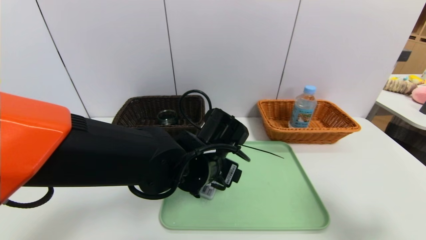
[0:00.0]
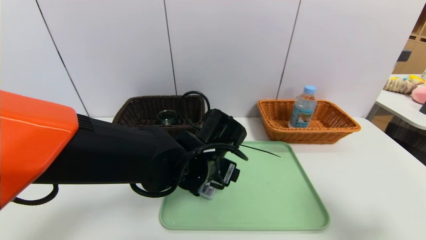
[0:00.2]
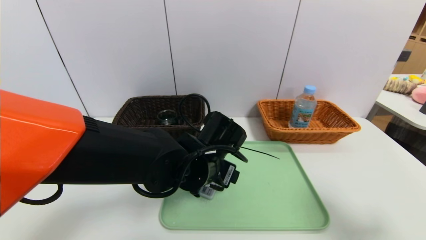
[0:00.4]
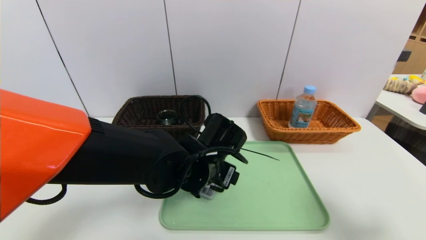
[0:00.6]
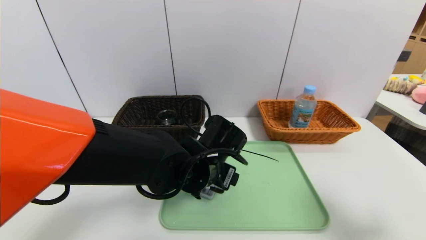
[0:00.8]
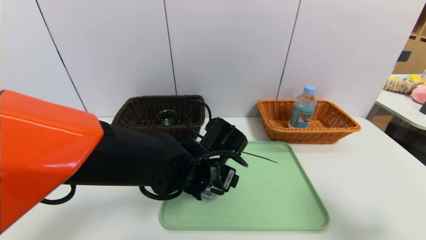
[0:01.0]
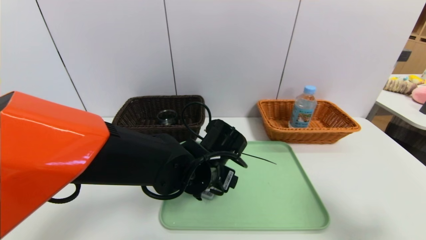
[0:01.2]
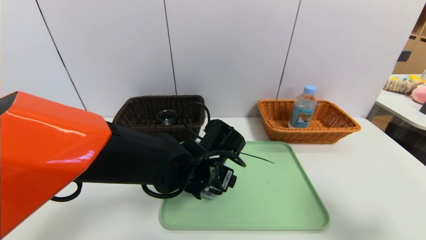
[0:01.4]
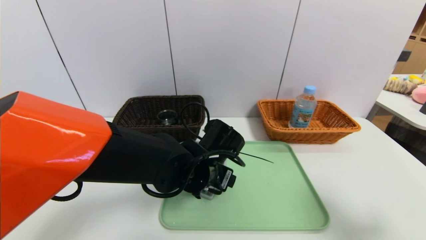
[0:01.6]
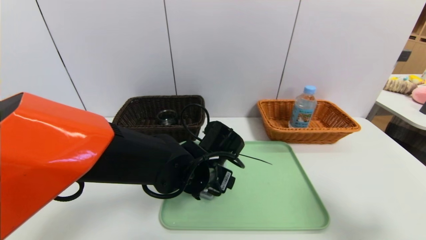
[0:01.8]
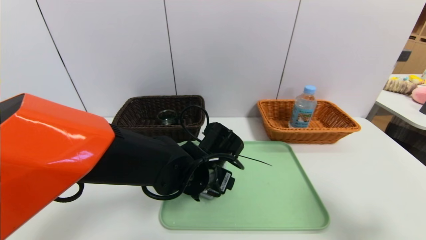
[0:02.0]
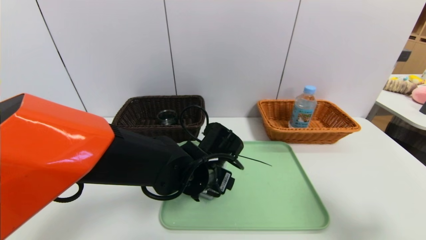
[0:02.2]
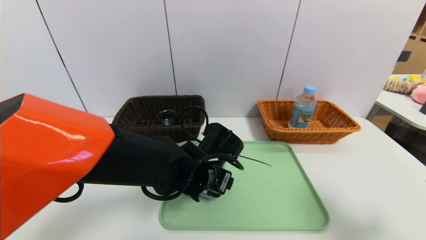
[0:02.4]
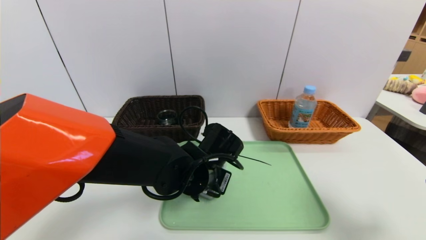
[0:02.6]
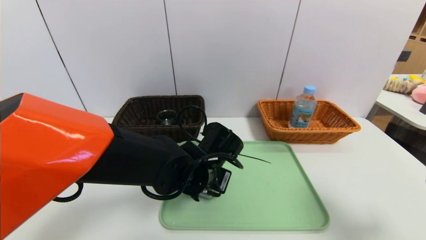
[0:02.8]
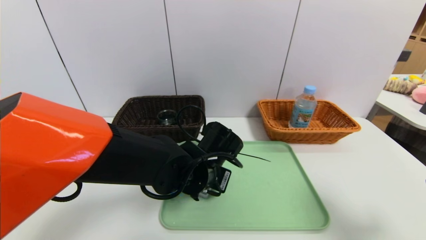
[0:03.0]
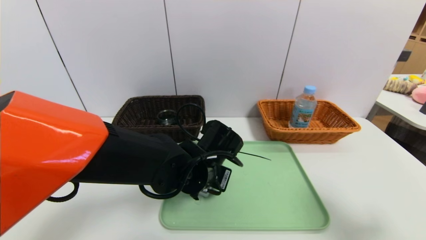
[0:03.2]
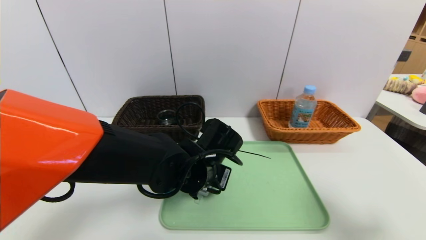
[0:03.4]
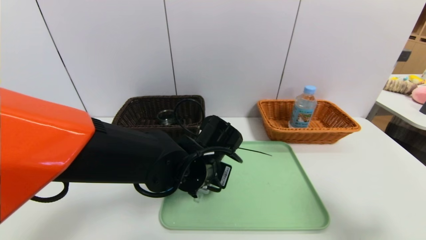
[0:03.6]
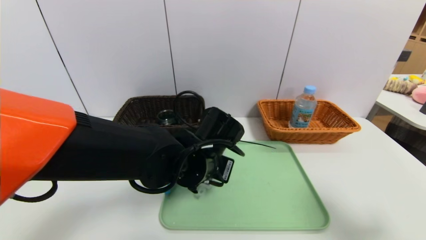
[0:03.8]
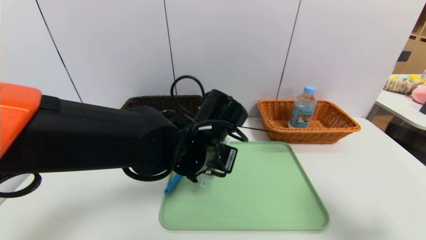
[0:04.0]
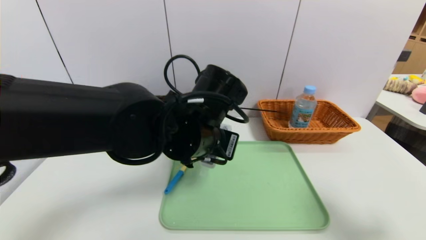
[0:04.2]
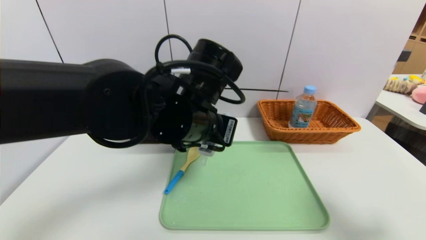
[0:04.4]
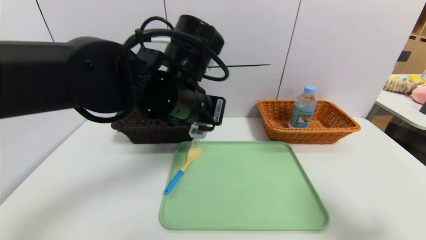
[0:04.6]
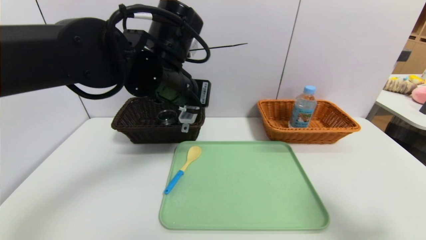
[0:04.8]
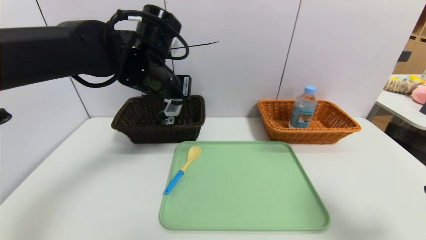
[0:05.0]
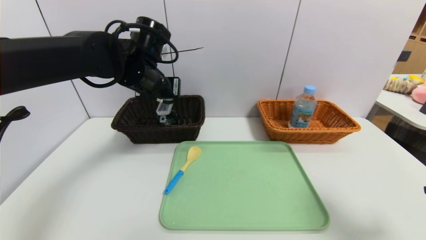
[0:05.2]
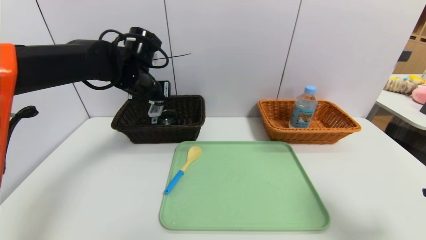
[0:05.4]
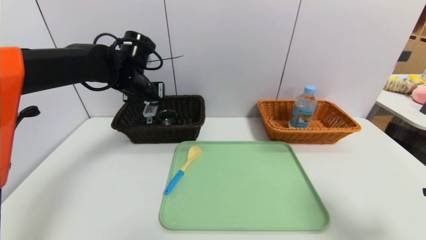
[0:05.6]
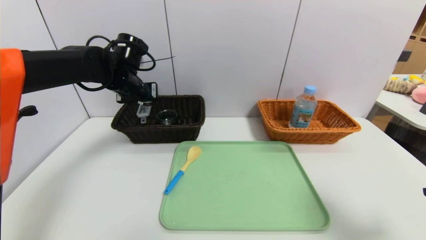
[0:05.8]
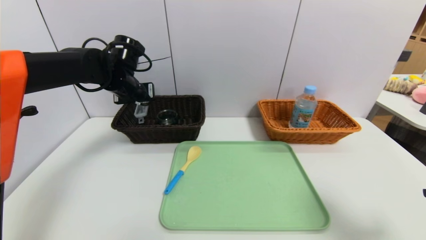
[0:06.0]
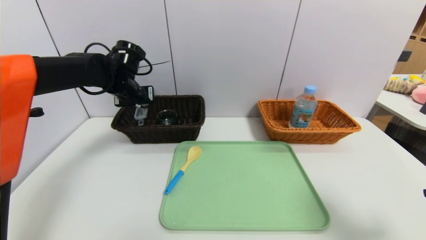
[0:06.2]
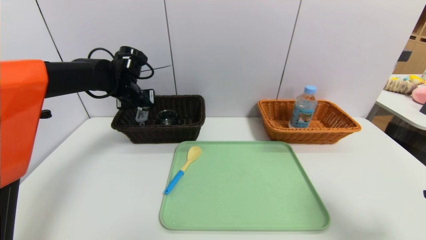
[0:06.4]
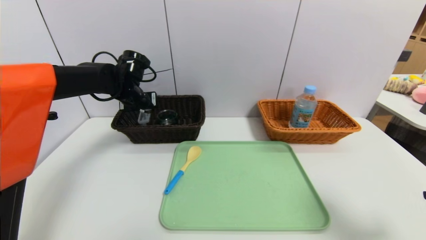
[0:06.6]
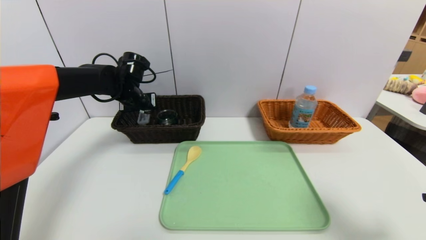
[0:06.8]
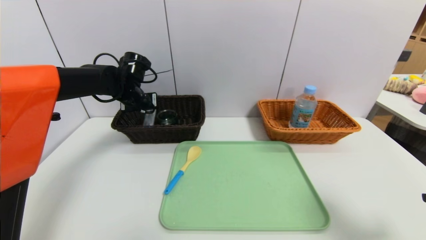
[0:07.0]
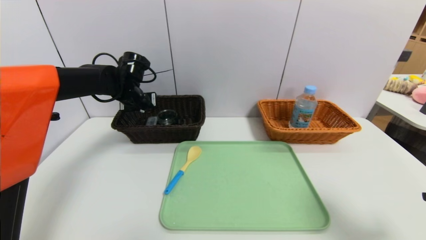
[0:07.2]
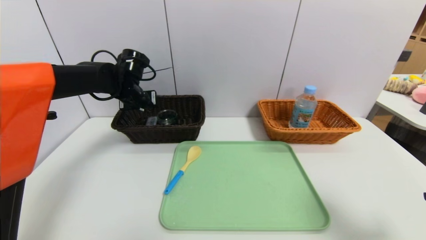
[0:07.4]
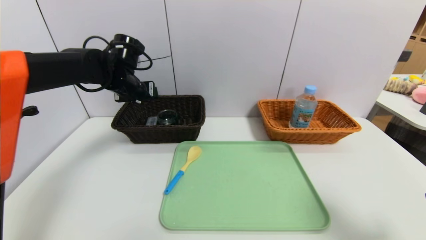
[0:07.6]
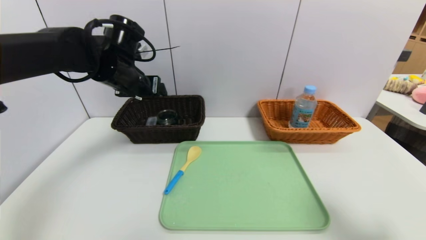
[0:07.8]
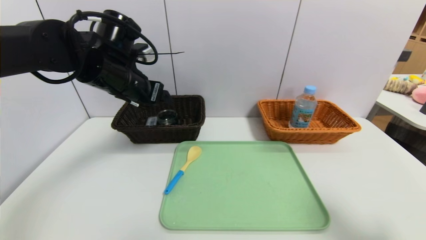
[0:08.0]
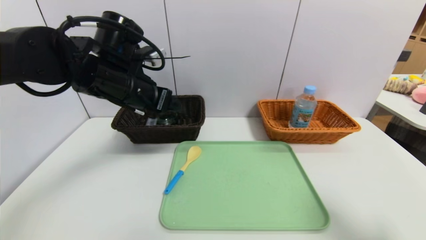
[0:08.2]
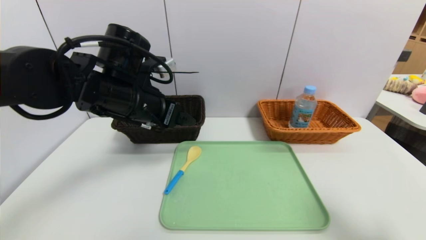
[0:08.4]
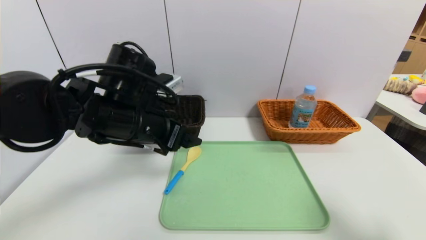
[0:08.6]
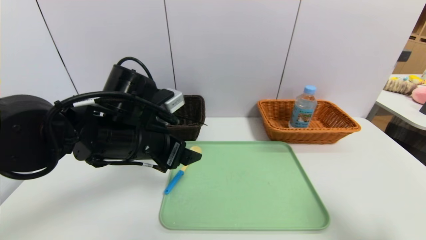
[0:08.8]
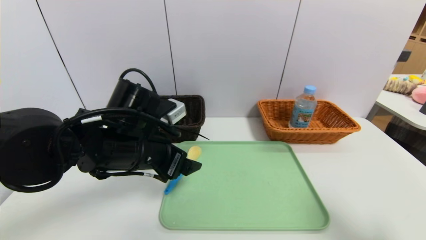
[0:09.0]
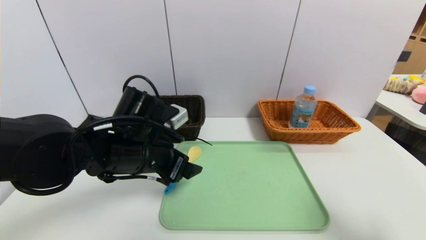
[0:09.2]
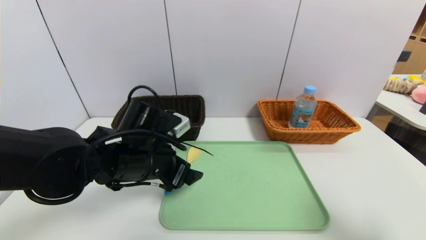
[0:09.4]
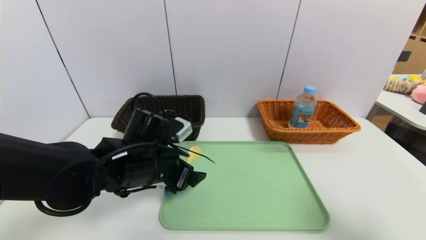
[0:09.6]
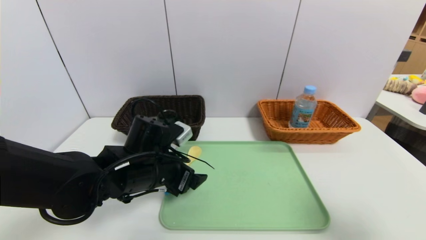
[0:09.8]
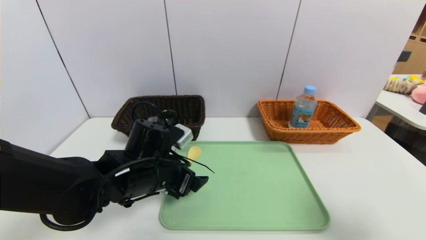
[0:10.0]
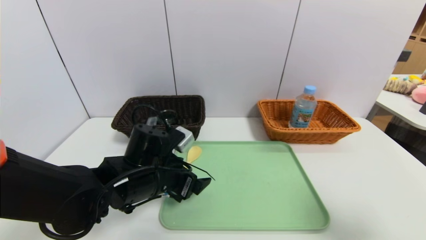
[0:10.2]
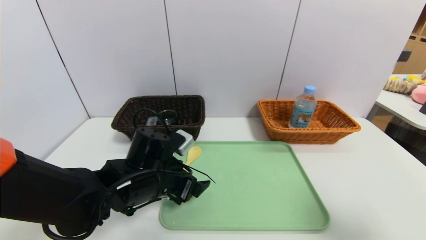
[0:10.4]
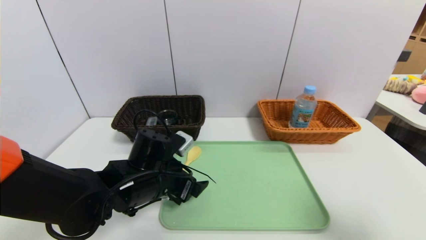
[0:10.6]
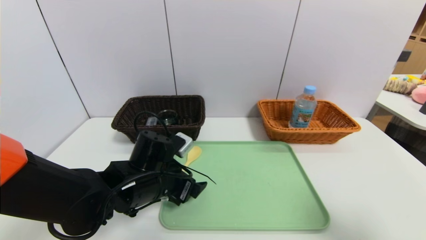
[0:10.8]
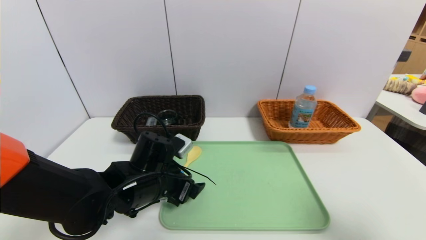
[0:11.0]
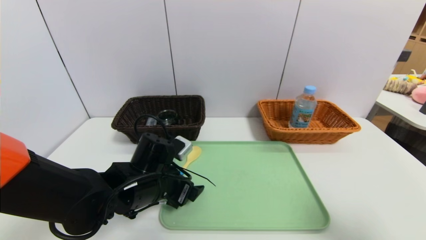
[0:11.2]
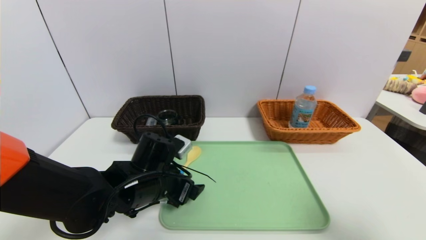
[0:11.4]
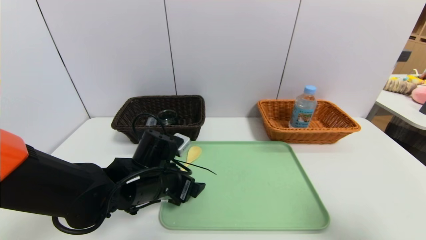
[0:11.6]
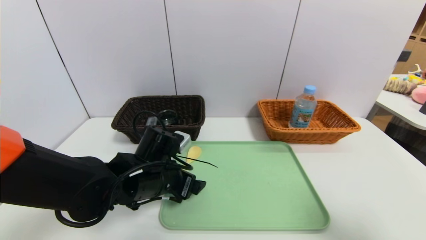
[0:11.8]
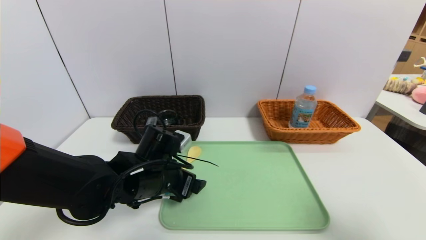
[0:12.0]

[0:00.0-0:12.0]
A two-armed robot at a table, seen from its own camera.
Task of the whole recording: place the food in the right basket with the right gripper, and place the non food items in the left basket with the left gripper.
Step, 0:00.0 to 0:08.6: Grasp the compass and put it in the left basket.
0:00.0 to 0:01.6: The grippers make only small movements.
0:01.6 to 0:03.0: The left gripper closes.
0:03.0 to 0:04.4: The left gripper moves upward, roughly 15 cm.
0:04.4 to 0:06.0: The left gripper travels to the left and forward by approximately 25 cm.
0:06.0 to 0:07.6: The left gripper opens.
0:07.6 to 0:09.0: The left gripper shifts some 20 cm backward and to the right.
0:09.0 to 0:10.4: The left gripper shifts about 10 cm downward.
0:10.4 to 0:12.0: The grippers make only small movements.

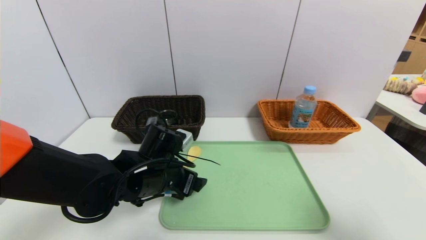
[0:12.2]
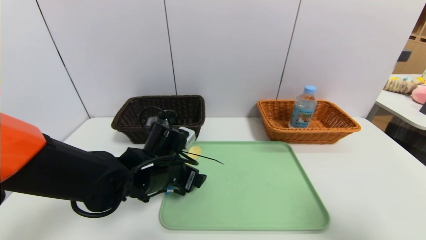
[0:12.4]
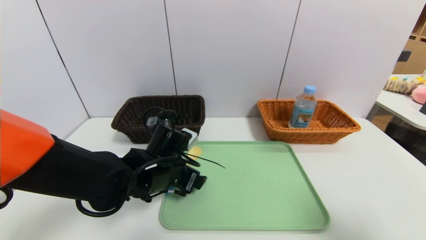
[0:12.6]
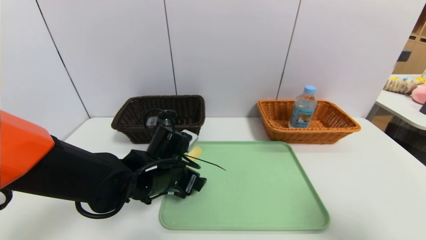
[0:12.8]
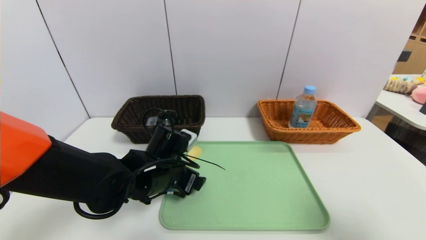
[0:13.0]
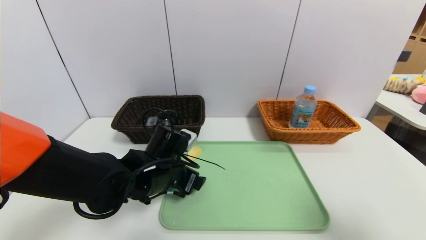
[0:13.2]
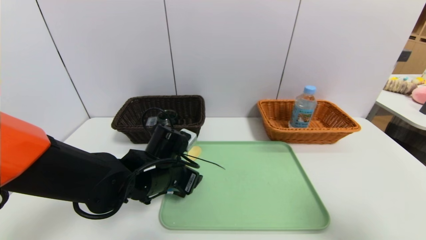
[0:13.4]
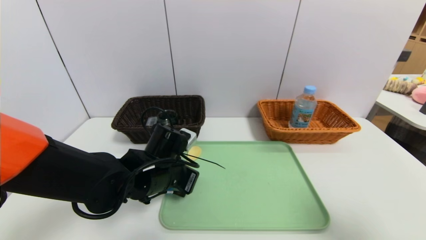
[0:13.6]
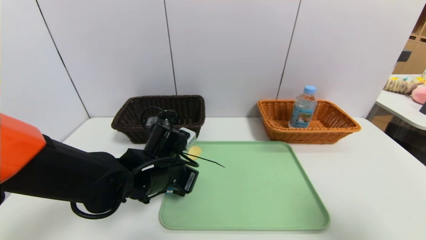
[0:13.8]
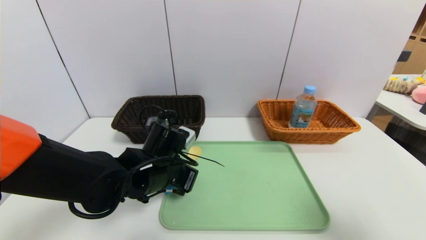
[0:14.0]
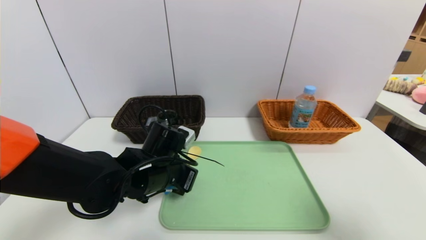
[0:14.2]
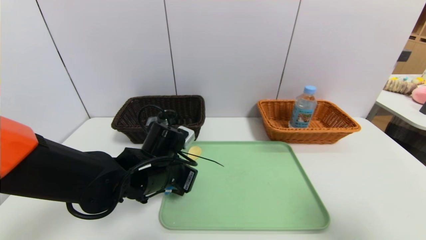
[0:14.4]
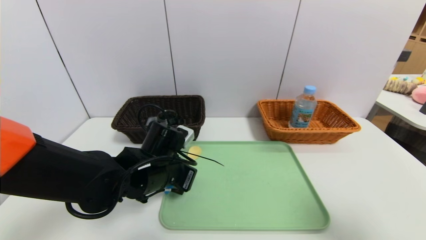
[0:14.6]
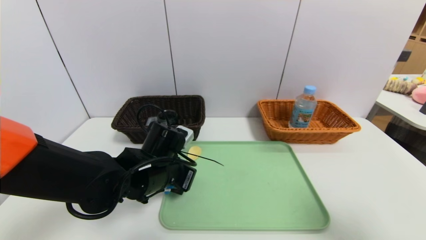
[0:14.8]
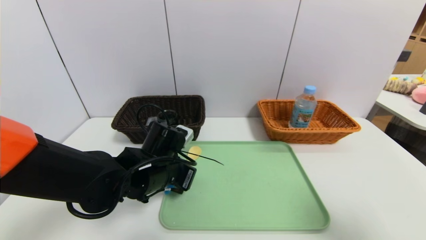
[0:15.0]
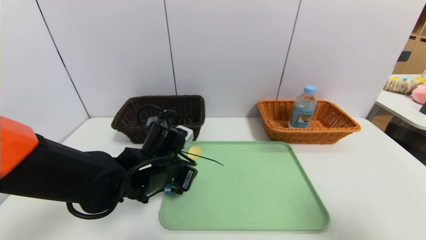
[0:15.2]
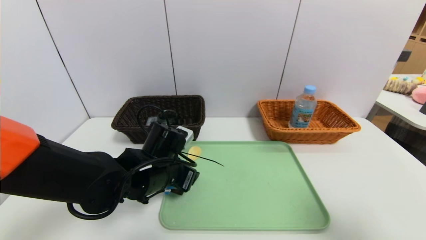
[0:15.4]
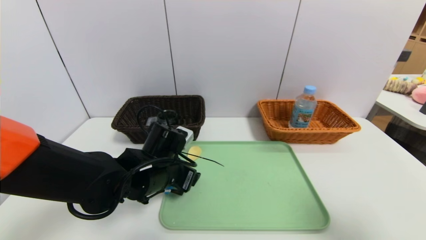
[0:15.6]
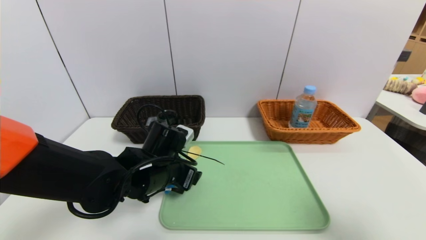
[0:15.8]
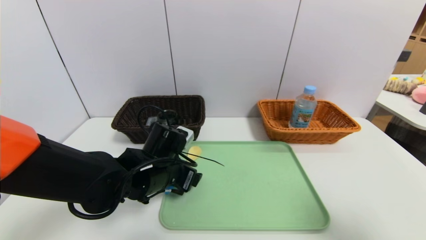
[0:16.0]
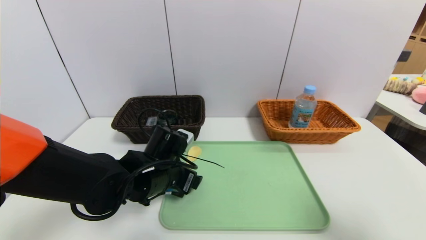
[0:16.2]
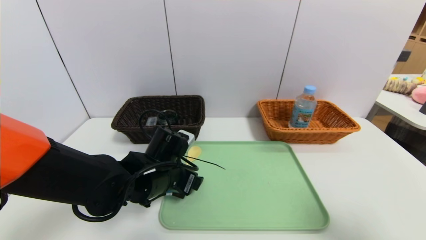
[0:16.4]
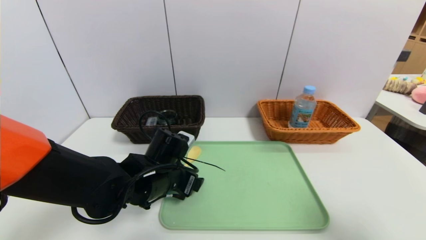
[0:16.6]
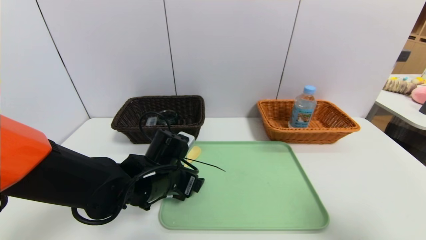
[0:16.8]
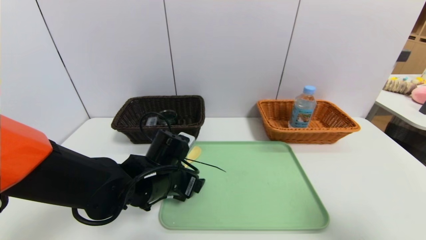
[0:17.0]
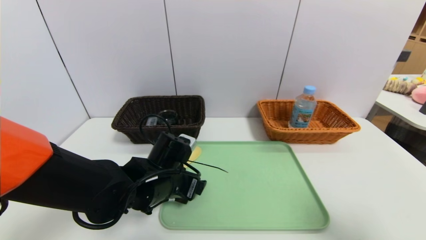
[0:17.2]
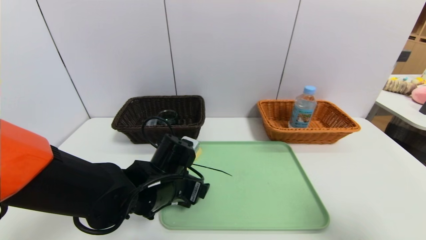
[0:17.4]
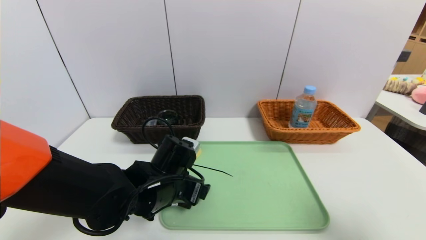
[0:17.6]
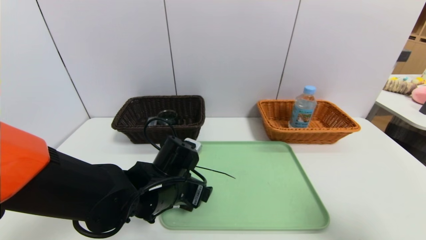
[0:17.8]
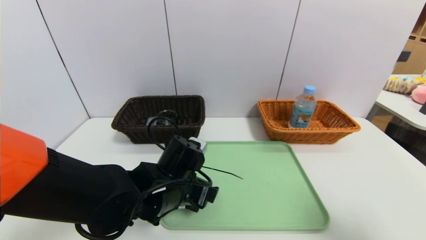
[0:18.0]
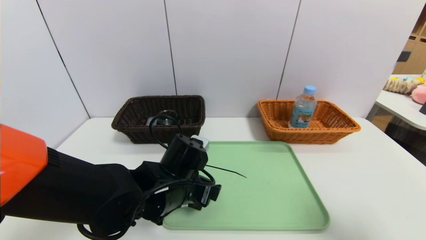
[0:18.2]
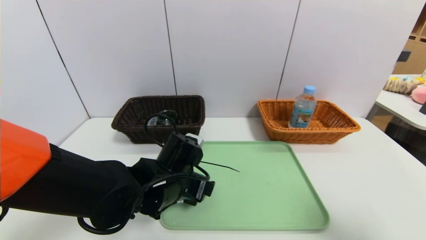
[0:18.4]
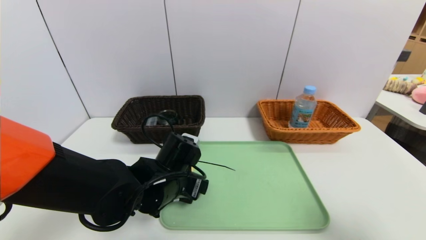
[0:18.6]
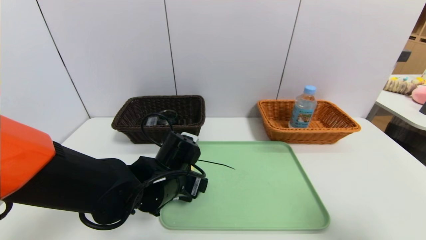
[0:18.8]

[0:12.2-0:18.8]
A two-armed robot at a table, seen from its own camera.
Task of the whole recording: place the food in the right basket with the right gripper, and place the non food items in the left basket with the left gripper.
0:12.2 to 0:13.8: The left gripper closes its fingers.
0:13.8 to 0:15.4: The left gripper opens its fingers.
0:15.4 to 0:18.8: There are only small adjustments of the grippers.
